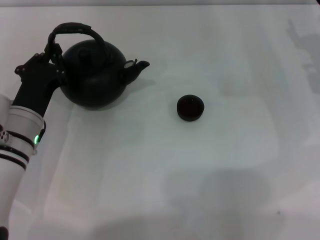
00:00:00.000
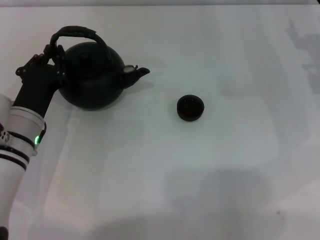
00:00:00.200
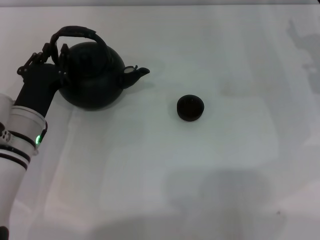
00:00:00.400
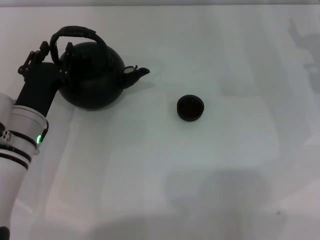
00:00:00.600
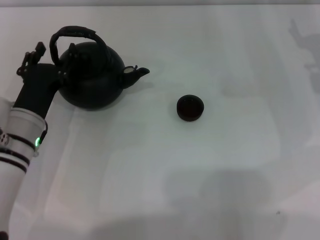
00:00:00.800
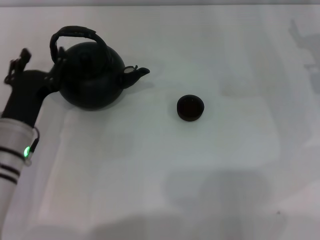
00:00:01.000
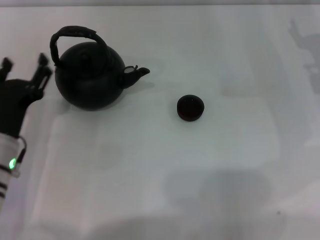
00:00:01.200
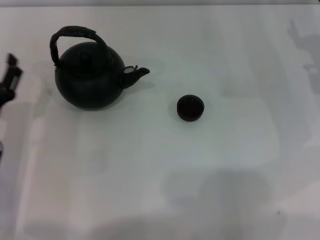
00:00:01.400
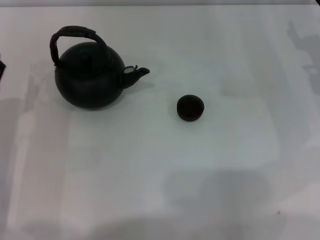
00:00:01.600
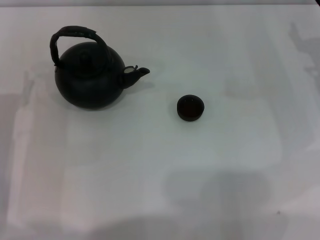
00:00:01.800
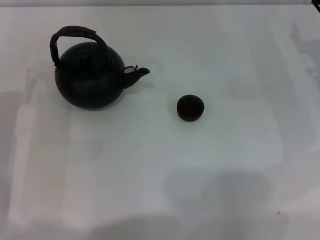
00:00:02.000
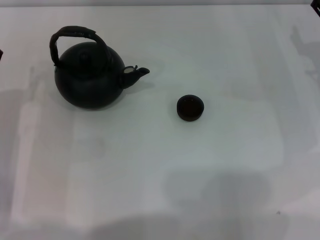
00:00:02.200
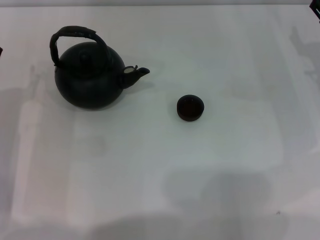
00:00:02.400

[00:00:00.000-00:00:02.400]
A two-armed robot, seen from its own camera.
Task of the whole recording: Grasp the handle of the teapot with one hand and pour tea into the teacup.
00:00:00.000 to 00:00:01.200: The left gripper opens its fingers.
00:00:01.200 to 00:00:02.400: The left gripper moves about 5 cm.

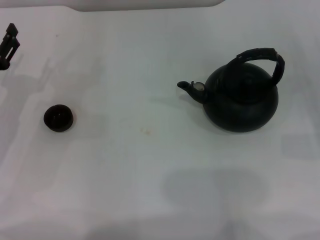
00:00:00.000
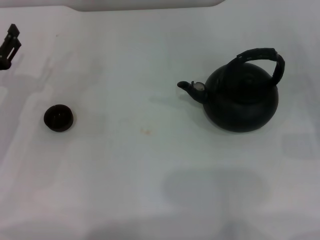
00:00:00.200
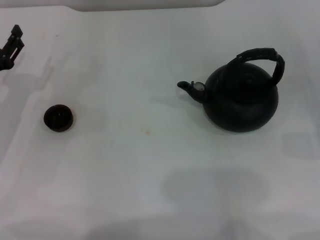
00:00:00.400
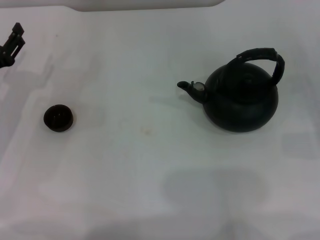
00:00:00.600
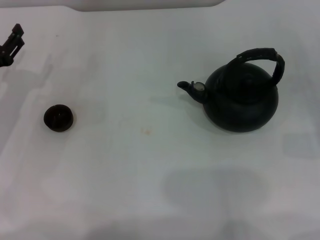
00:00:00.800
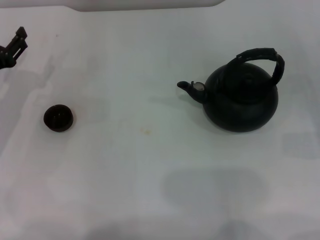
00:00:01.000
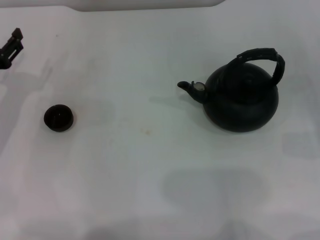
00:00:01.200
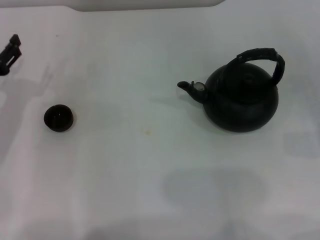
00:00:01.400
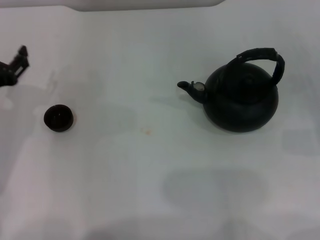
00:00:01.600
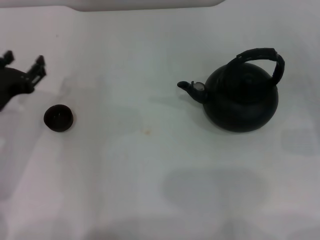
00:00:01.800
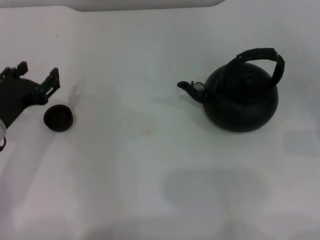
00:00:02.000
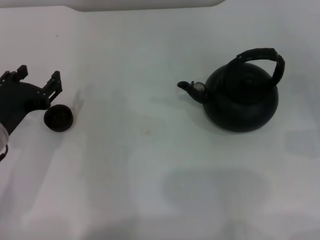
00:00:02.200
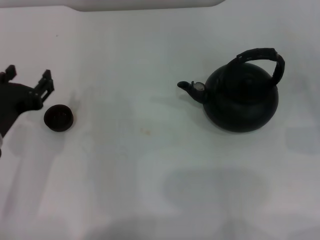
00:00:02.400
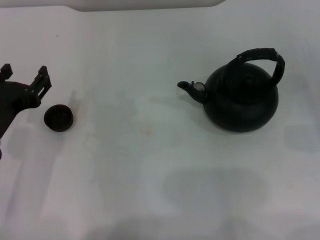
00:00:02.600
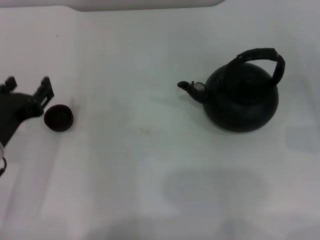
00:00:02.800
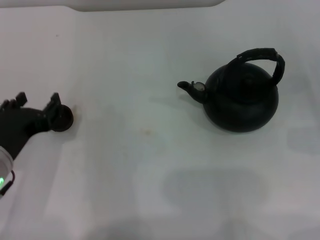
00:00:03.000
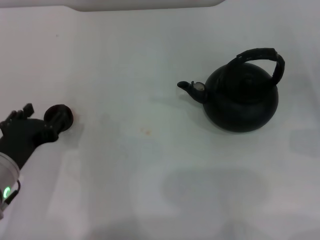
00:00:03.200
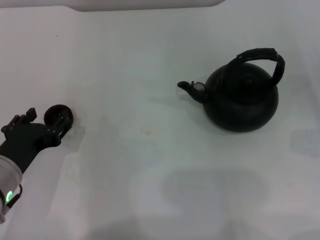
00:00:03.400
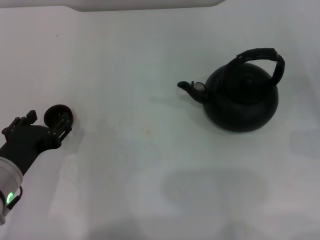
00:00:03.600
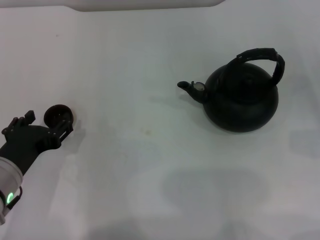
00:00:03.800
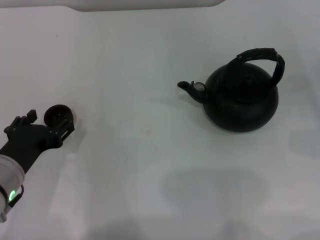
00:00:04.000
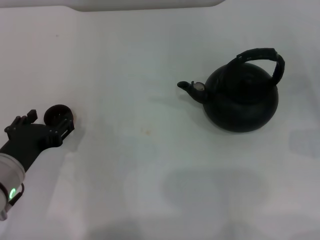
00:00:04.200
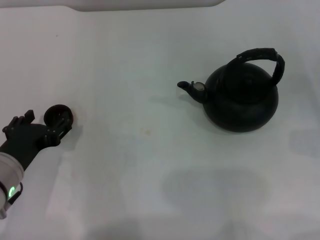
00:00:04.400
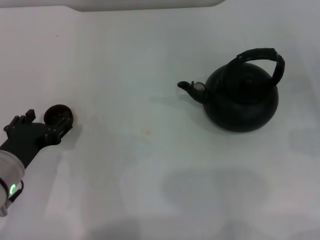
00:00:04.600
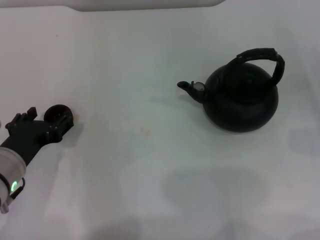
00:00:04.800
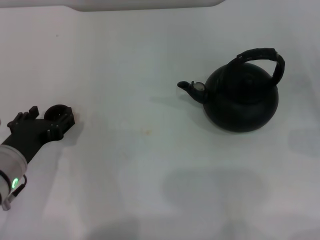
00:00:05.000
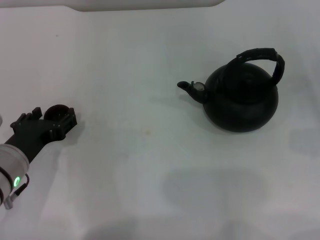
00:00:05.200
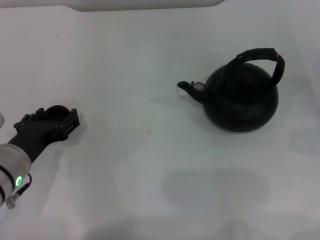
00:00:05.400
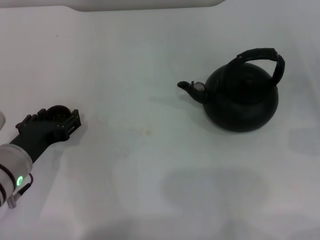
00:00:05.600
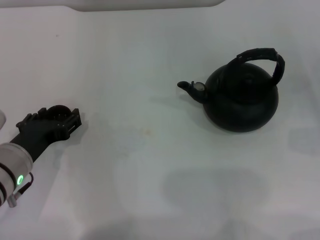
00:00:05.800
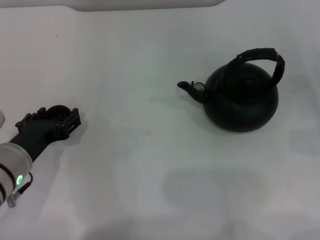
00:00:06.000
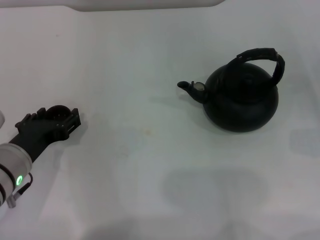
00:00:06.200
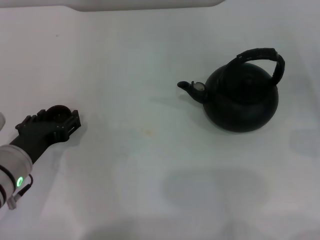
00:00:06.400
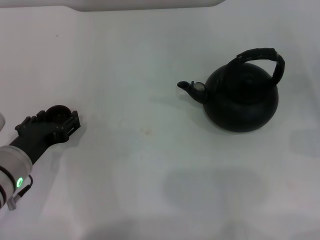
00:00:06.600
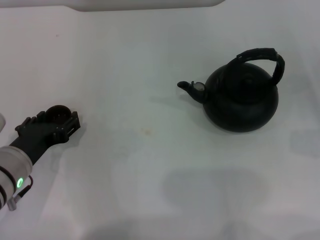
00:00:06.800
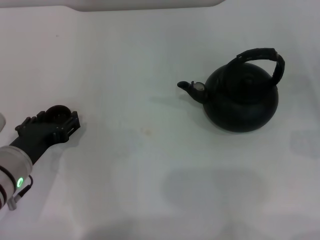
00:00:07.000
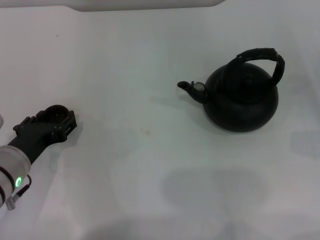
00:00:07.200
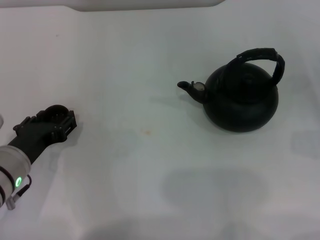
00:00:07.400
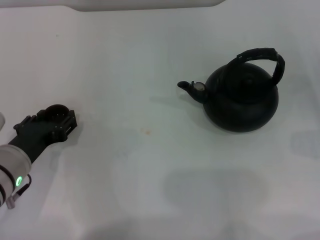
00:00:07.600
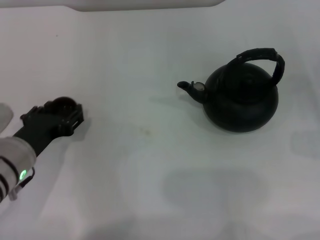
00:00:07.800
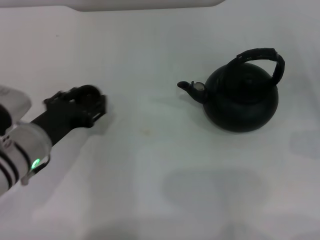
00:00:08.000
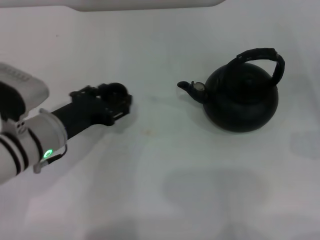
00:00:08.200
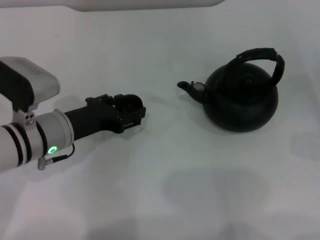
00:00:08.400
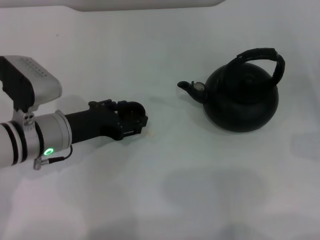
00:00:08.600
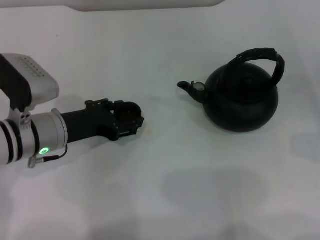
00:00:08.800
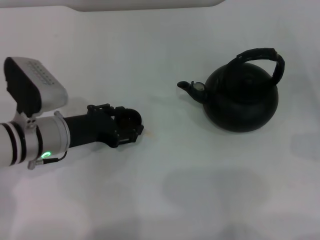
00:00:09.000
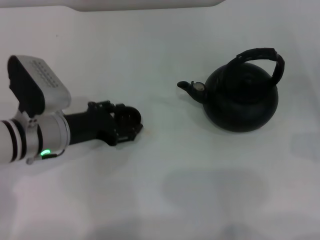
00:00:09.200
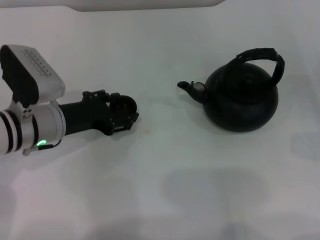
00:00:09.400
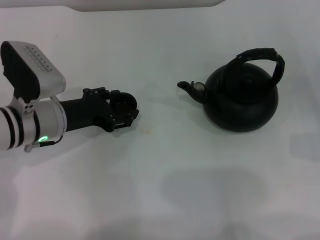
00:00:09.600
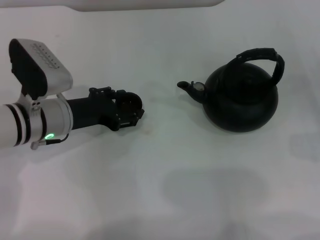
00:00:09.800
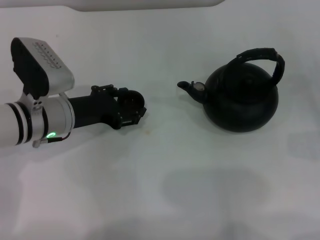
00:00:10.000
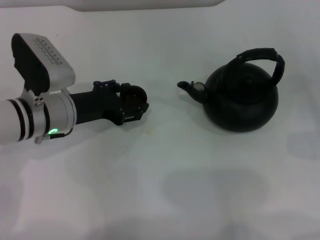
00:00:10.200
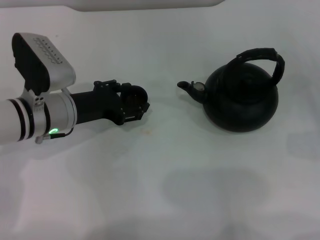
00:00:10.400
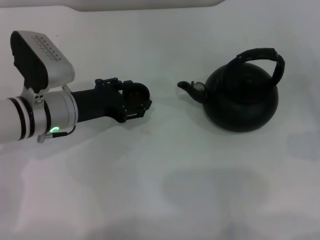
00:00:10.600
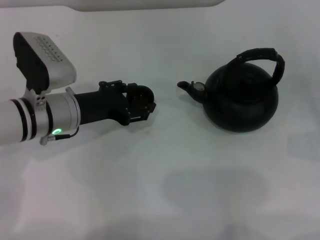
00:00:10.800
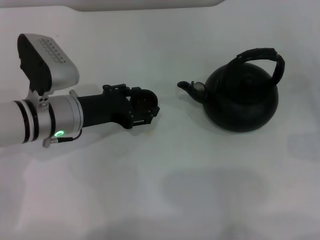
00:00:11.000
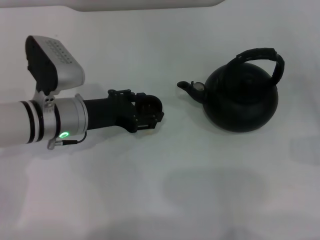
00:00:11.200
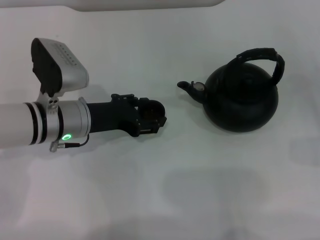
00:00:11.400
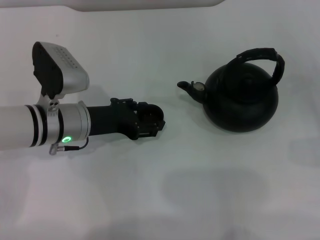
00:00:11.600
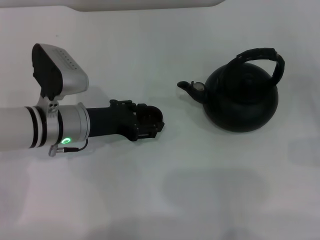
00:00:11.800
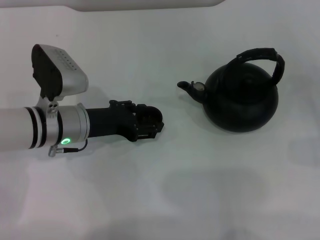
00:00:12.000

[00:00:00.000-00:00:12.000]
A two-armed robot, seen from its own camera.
Task of the whole recording: Grasp the handle of the teapot with one hand and pour tea into the teacup.
Step, 00:00:00.000 to 00:00:07.800: Pick up the teacup with the left gripper.
00:00:00.000 to 00:00:01.600: The left gripper moves some 5 cm.
00:00:01.600 to 00:00:03.000: The left gripper heads backward and to the right, covering about 10 cm.
00:00:03.000 to 00:00:04.400: The left gripper opens.
00:00:04.400 to 00:00:06.000: The grippers stay close to where they were, moving slightly.
00:00:06.000 to 00:00:07.600: The left gripper closes its fingers.
00:00:07.600 to 00:00:09.000: The left gripper travels forward by about 5 cm.
00:00:09.000 to 00:00:12.000: The grippers make only small movements.

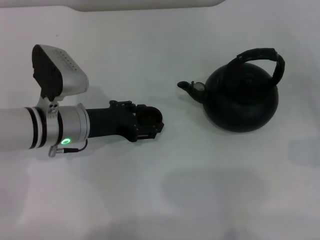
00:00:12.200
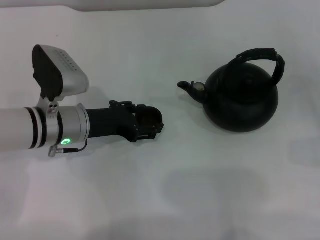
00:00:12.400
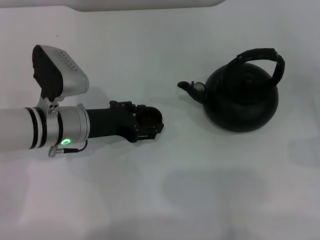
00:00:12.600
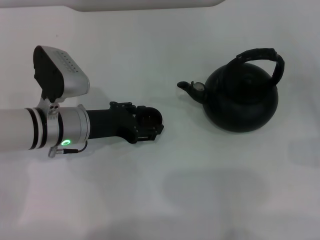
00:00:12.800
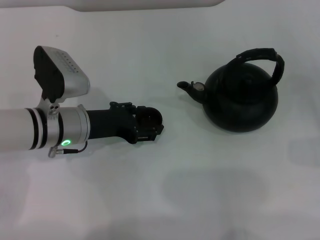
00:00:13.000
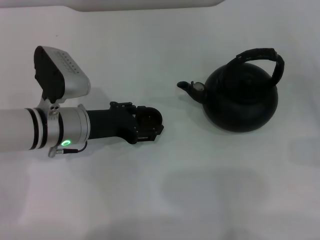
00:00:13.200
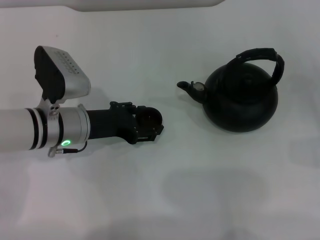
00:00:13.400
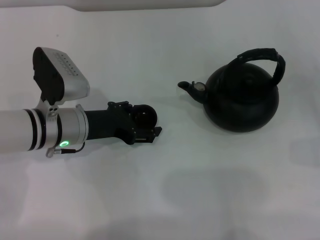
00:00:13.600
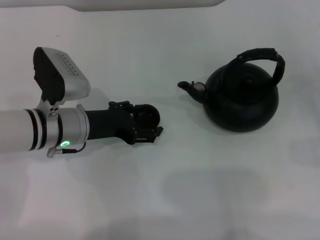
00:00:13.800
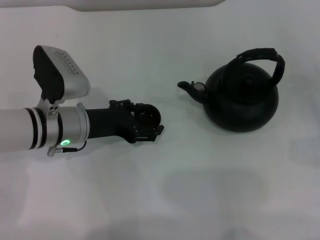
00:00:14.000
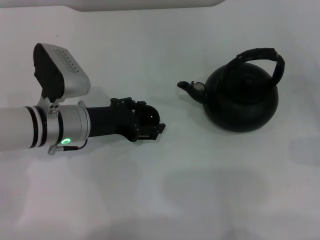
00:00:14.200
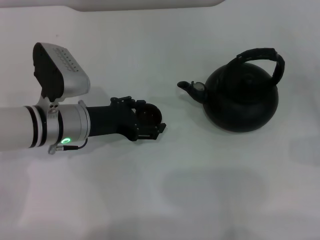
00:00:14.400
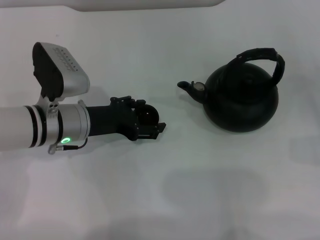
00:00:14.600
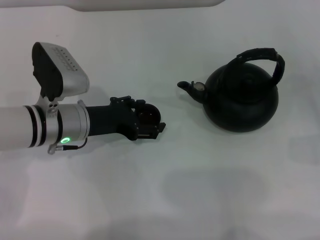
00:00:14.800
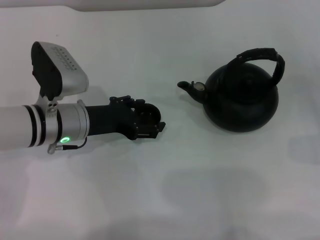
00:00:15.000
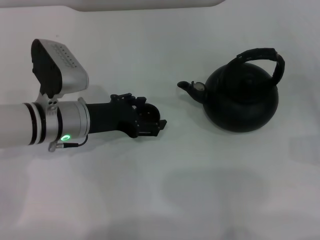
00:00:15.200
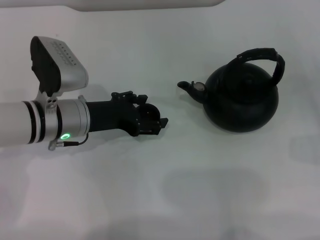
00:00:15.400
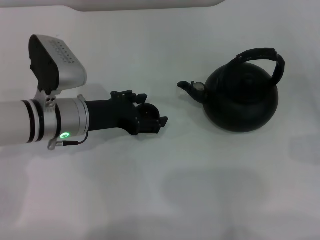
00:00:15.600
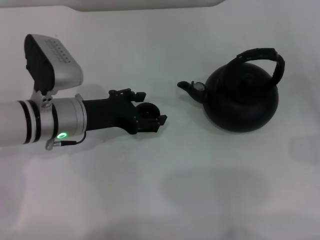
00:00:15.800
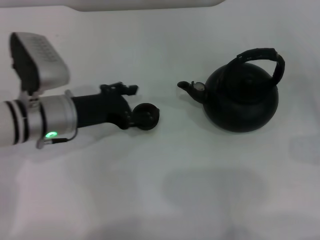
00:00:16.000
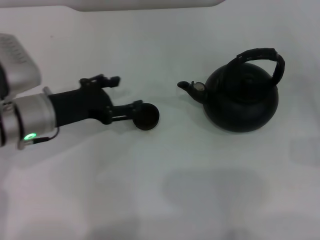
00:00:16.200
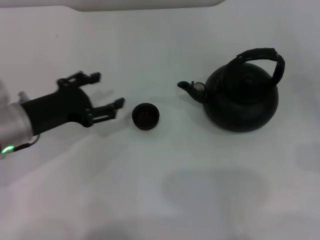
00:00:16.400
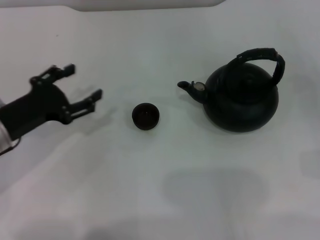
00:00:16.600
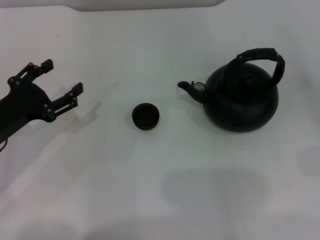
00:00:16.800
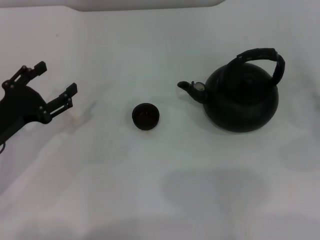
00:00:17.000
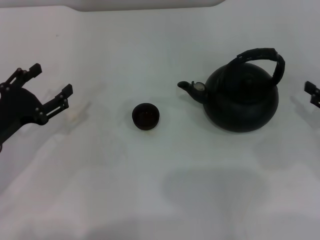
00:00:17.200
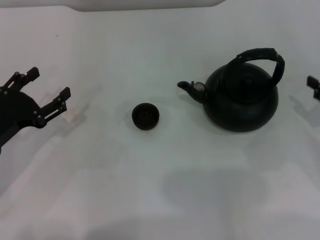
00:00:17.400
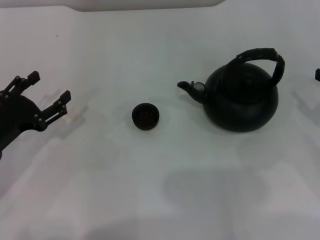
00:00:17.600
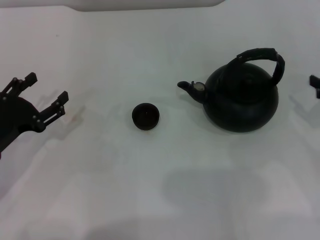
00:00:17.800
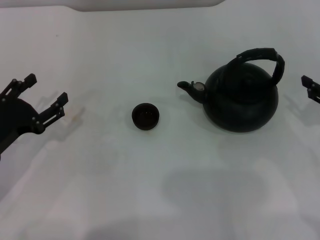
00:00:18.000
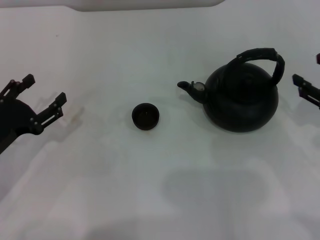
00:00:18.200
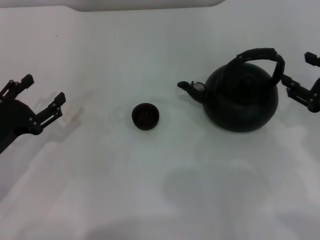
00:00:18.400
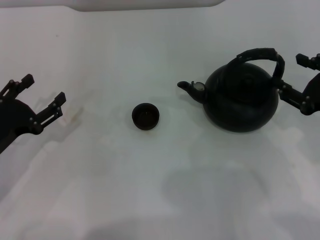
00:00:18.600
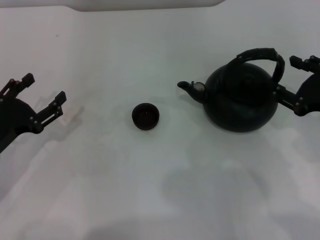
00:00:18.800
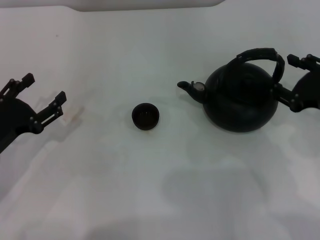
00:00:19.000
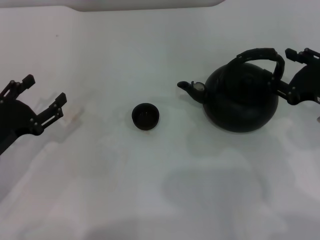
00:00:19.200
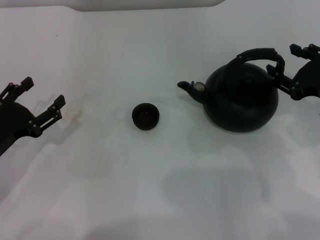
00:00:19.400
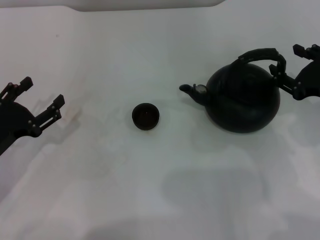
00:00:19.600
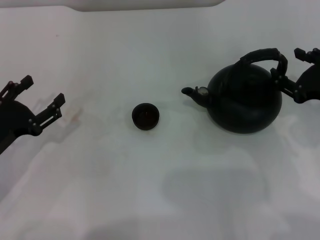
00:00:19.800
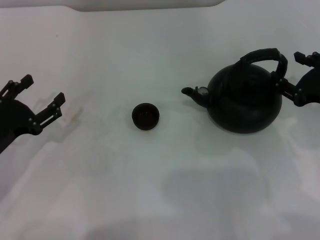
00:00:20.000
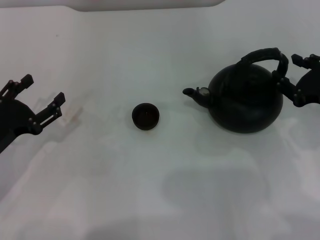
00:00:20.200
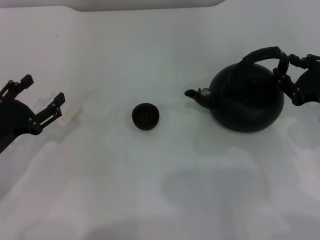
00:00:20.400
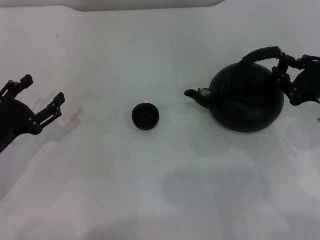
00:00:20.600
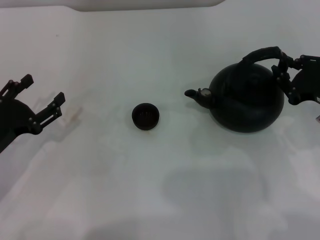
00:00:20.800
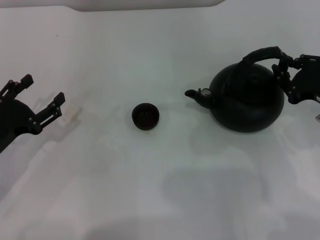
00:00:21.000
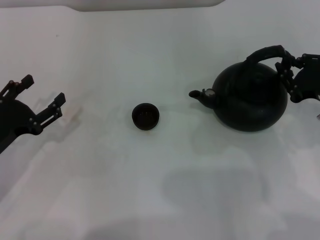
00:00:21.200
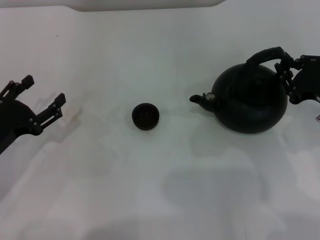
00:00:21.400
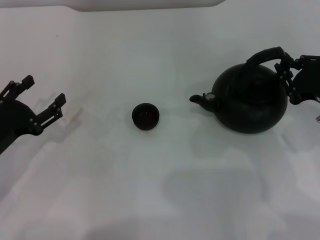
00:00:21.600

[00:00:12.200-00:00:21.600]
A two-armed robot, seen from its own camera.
Task of the whole recording: Grasp the handle of the teapot with one hand and pour tea into the teacup.
Step, 00:00:12.200 to 00:00:16.200: Place the teacup in the center of view with the left gripper.
00:00:12.200 to 00:00:13.800: The left gripper opens.
00:00:13.800 to 00:00:15.400: The left gripper opens.
00:00:15.400 to 00:00:17.000: The left gripper shifts about 15 cm to the left and backward.
00:00:17.000 to 00:00:18.400: The right gripper shifts some 10 cm to the left and upward.
00:00:18.400 to 00:00:20.000: The grippers make only small movements.
00:00:20.000 to 00:00:21.600: The right gripper closes.
